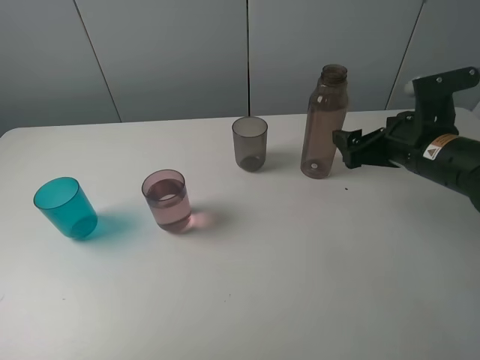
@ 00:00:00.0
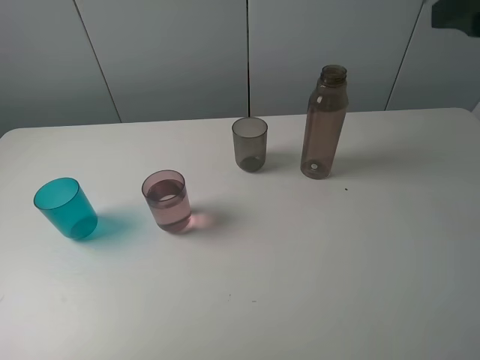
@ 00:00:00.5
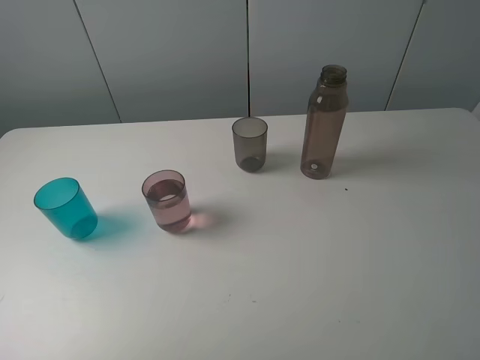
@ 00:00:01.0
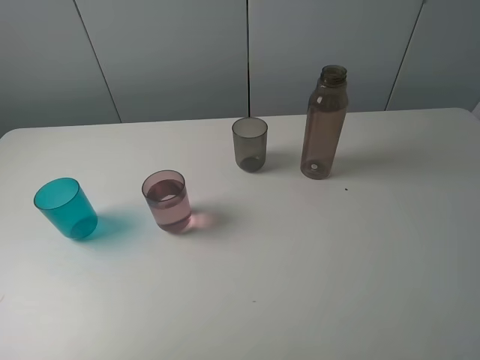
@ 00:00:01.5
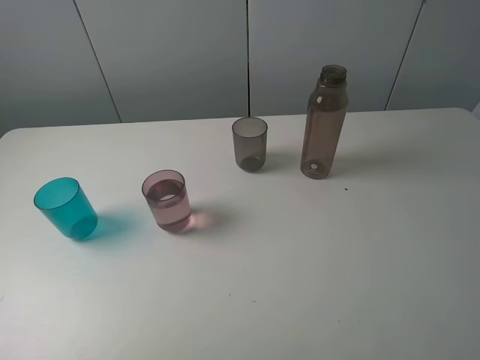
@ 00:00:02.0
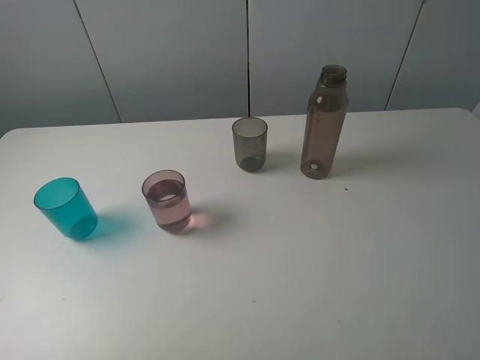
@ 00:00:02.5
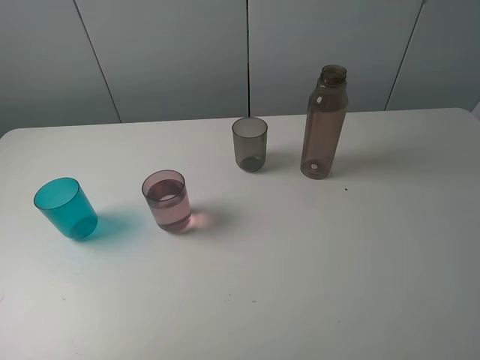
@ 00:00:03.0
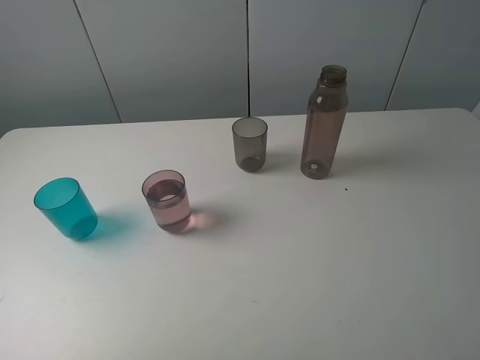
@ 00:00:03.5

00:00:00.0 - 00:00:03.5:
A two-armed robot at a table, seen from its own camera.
Task of the whole recording: pick up the bottle filled with water and pour water into the middle cup of the three cups.
00:00:00.0 - 00:00:02.0: The right gripper is displaced backward and upward by roughly 30 cm.
